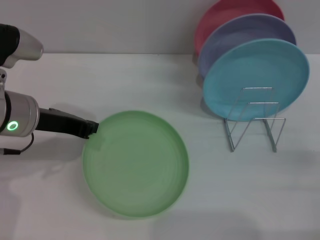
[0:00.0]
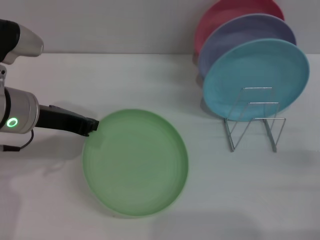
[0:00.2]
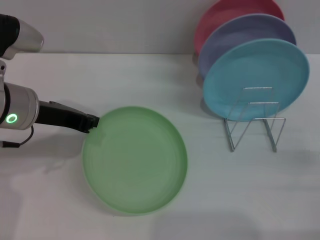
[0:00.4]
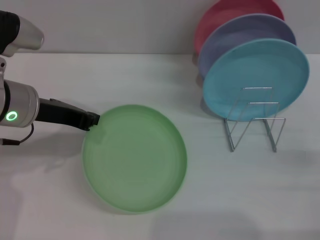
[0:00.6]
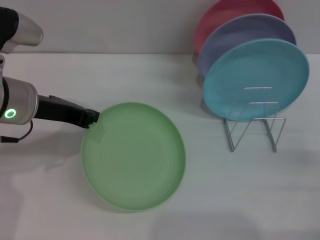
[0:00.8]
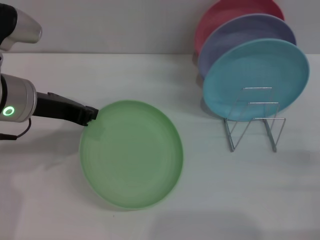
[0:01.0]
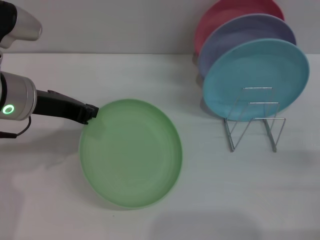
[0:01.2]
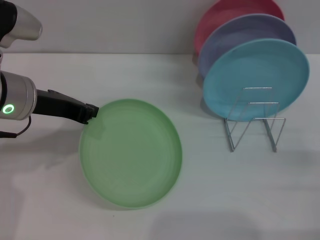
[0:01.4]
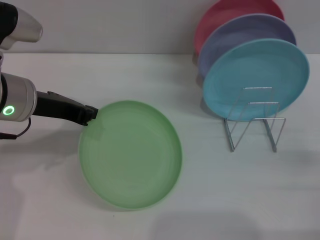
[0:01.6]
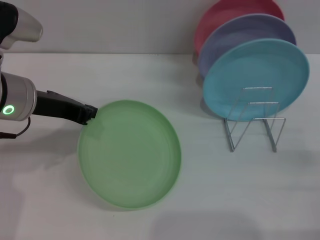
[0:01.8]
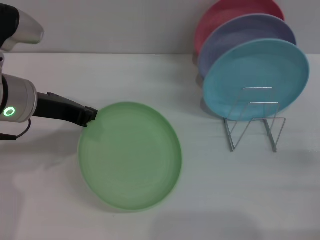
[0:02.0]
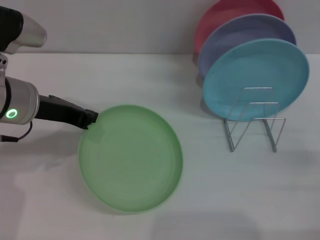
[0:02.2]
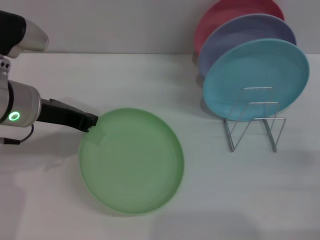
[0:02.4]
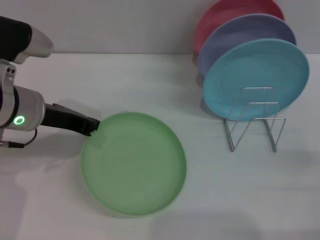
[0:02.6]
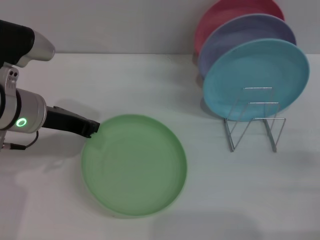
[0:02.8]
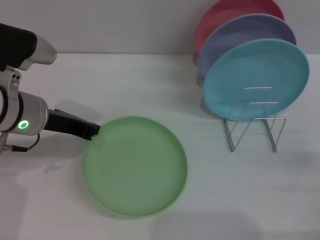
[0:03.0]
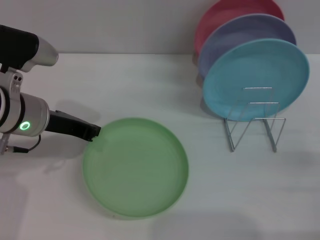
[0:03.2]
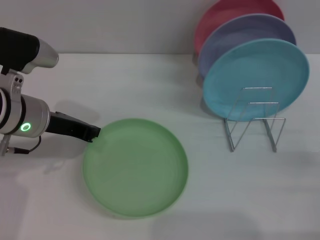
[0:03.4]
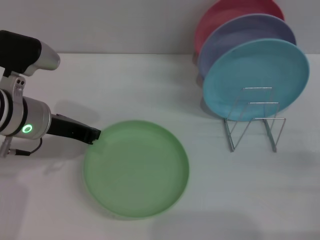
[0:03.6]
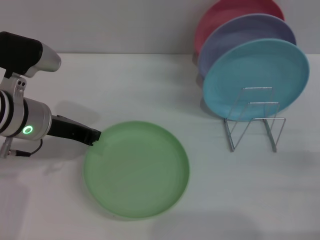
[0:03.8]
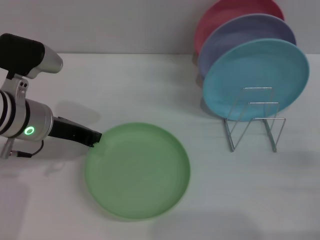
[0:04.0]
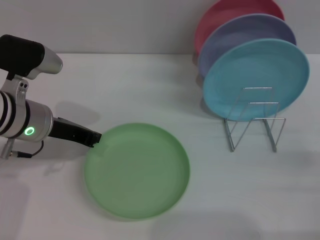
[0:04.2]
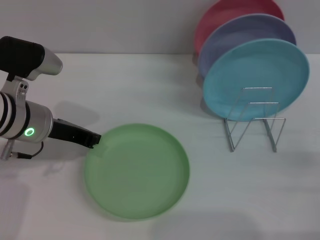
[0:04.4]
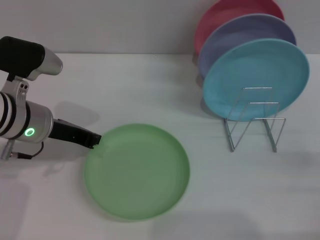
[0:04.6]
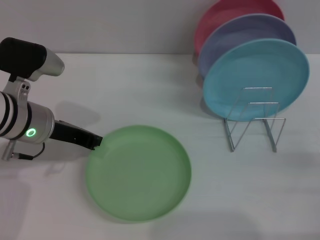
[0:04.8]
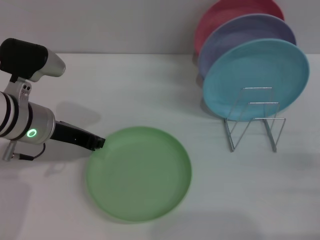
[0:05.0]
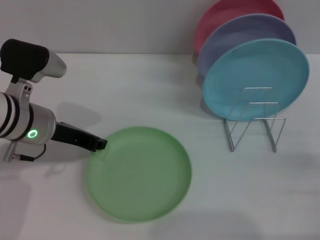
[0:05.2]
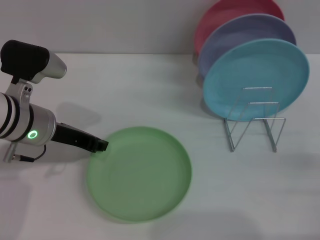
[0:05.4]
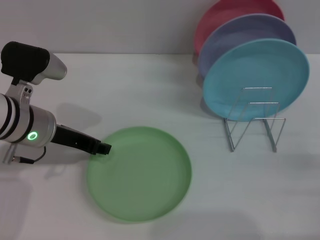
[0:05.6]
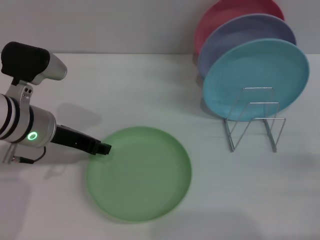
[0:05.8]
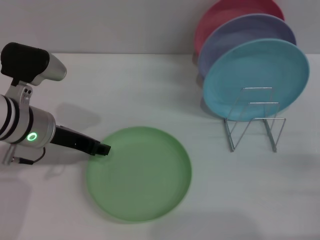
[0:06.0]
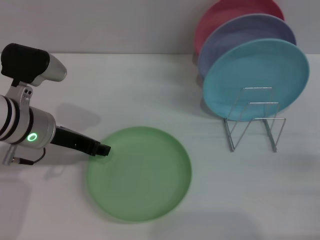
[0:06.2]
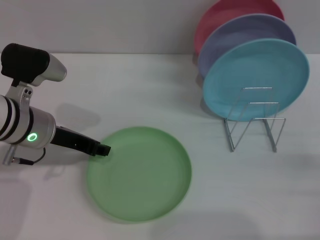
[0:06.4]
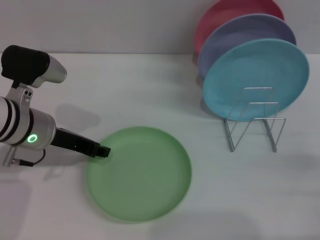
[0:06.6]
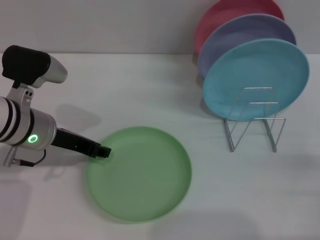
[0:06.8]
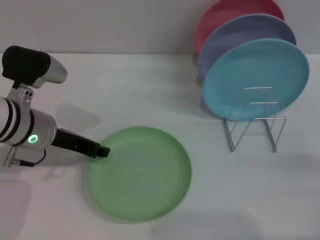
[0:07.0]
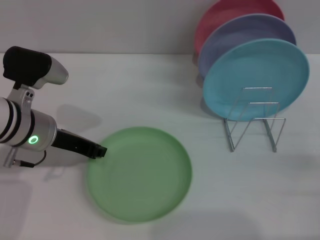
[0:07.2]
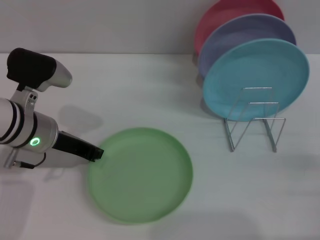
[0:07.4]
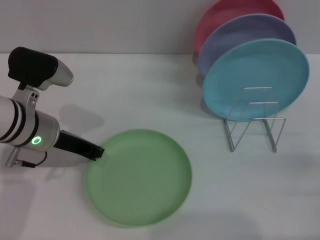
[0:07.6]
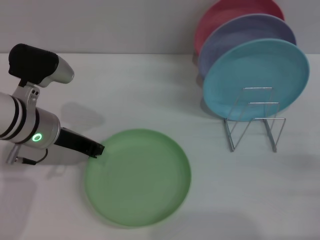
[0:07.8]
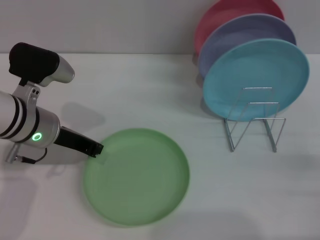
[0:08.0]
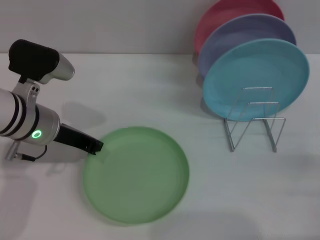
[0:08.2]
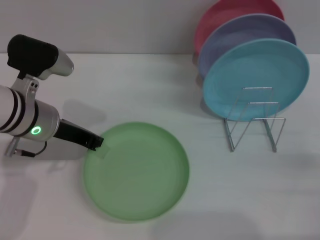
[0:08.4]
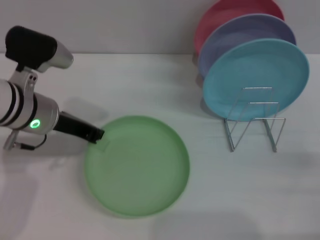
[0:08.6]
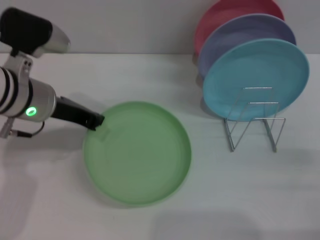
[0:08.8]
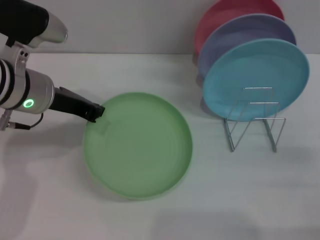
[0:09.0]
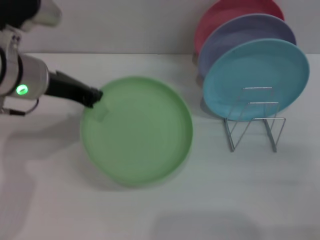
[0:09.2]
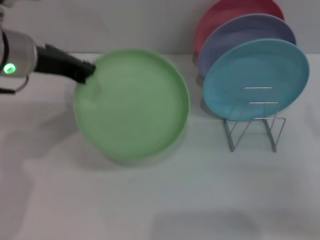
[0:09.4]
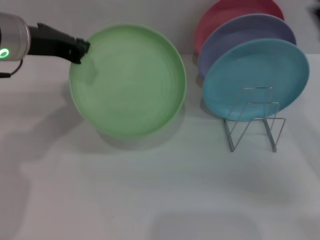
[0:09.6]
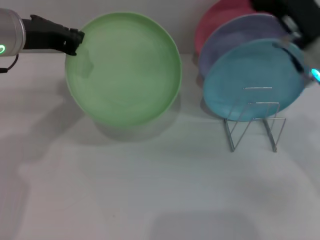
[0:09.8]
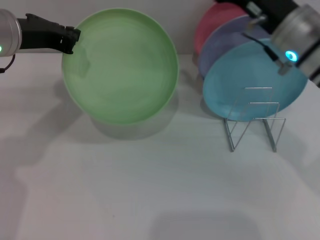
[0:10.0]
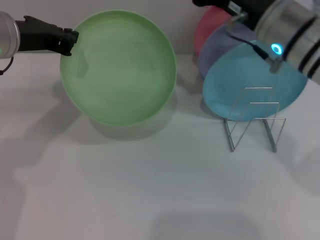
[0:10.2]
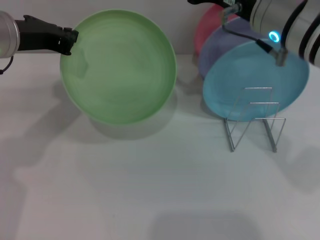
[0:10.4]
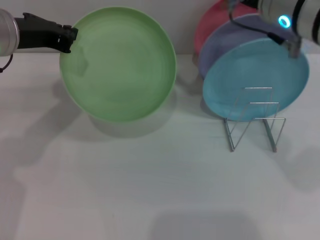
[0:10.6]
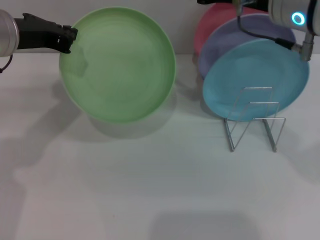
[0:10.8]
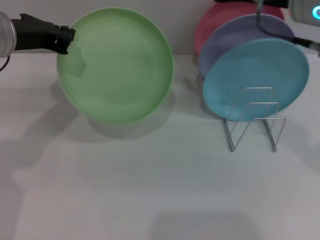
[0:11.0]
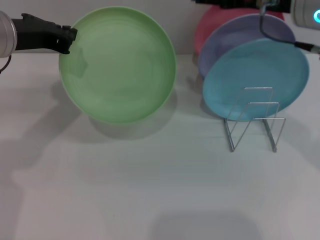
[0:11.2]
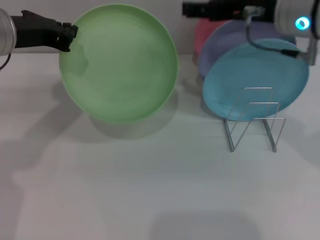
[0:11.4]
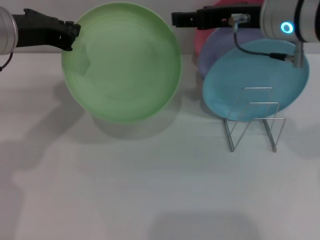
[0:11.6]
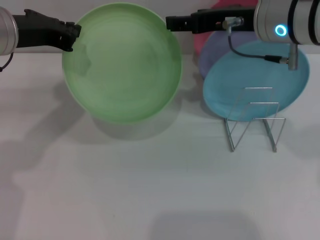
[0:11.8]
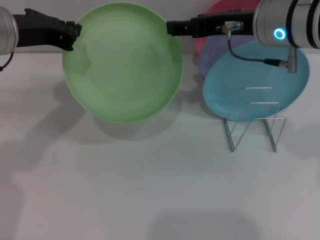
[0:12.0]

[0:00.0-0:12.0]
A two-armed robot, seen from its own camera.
Task of the whole recording: Grip the plate with one hand, pass it to the other, then set it on the shelf.
Step, 0:00.0 to 0:09.6: Pick up the plate with the left gripper.
0:00.0 to 0:04.4: There are only small adjustments of the grippers.
0:04.4 to 0:06.0: The left gripper opens up.
0:06.0 to 0:07.6: The left gripper closes its fingers.
0:07.6 to 0:09.0: The left gripper shifts approximately 5 cm upward.
0:09.0 to 0:10.4: The left gripper is displaced upward by roughly 5 cm. The right gripper heads to the left, upward and forward, covering roughly 30 cm.

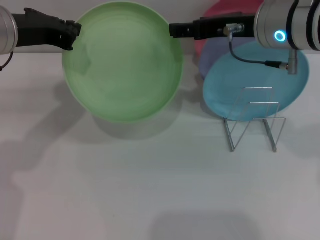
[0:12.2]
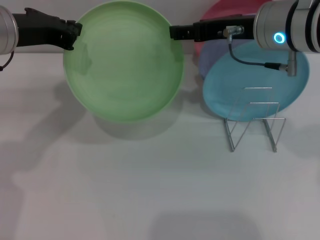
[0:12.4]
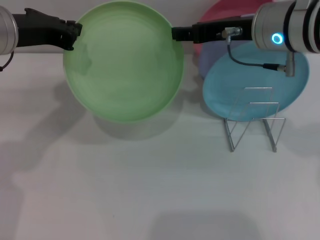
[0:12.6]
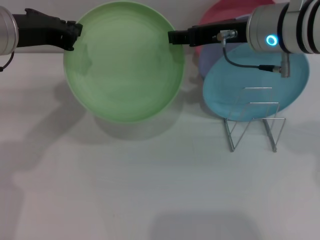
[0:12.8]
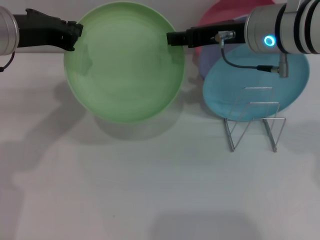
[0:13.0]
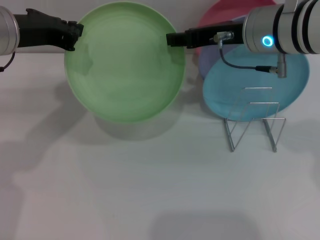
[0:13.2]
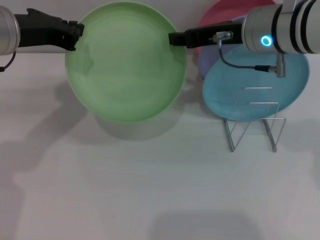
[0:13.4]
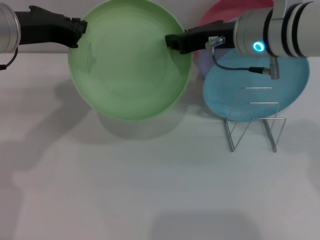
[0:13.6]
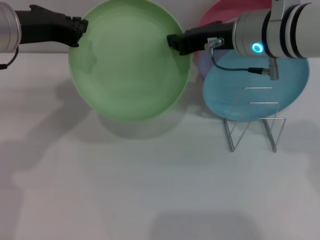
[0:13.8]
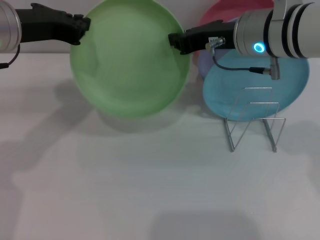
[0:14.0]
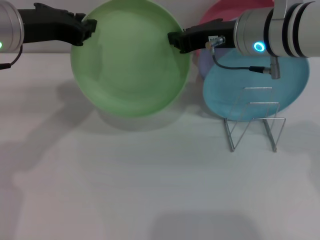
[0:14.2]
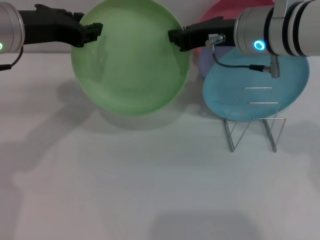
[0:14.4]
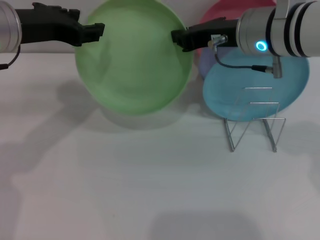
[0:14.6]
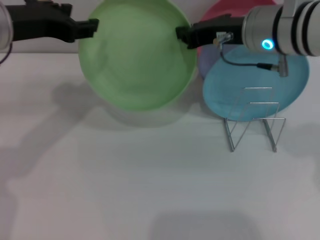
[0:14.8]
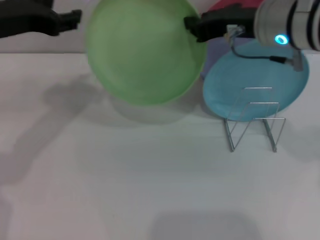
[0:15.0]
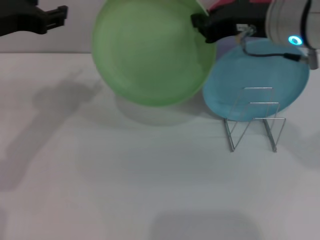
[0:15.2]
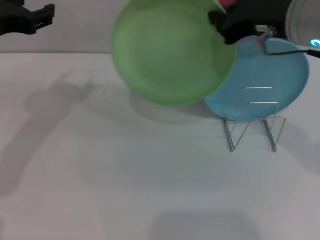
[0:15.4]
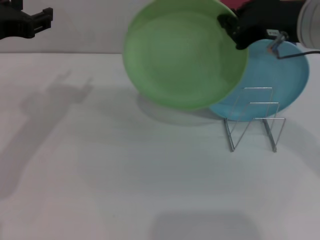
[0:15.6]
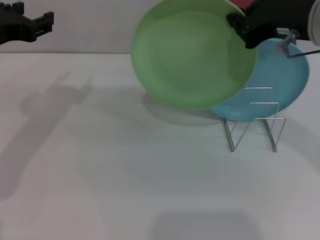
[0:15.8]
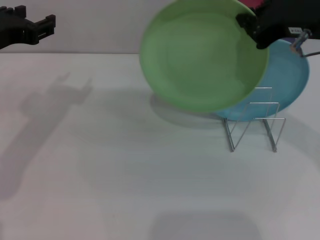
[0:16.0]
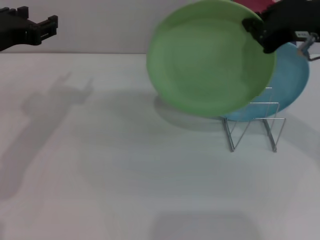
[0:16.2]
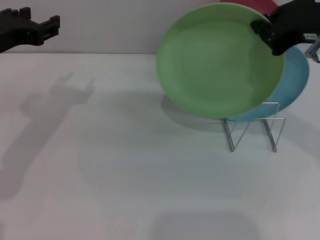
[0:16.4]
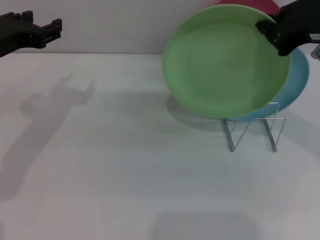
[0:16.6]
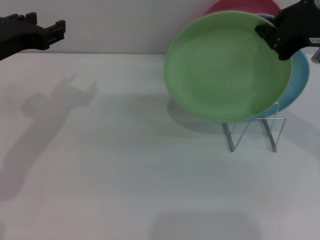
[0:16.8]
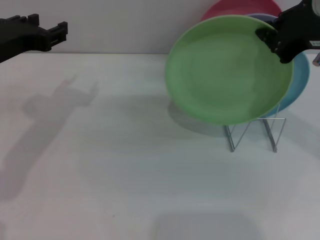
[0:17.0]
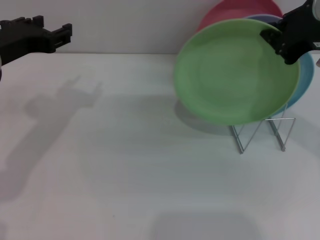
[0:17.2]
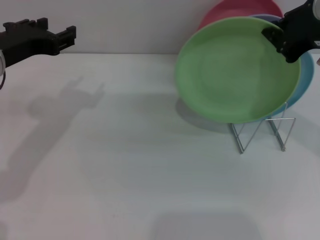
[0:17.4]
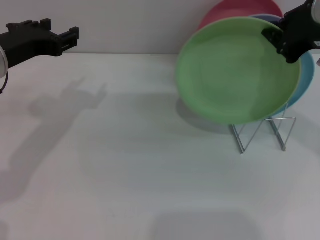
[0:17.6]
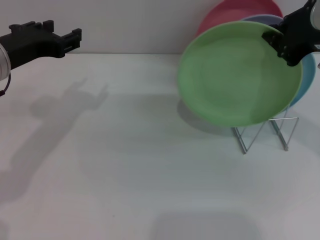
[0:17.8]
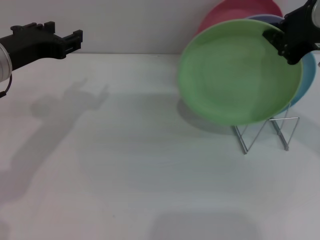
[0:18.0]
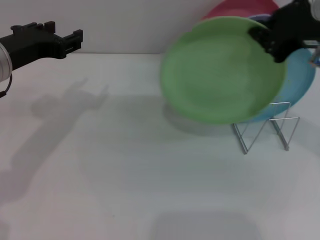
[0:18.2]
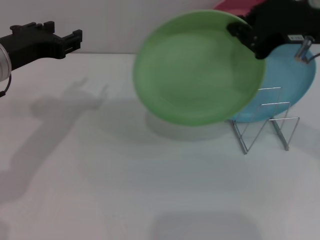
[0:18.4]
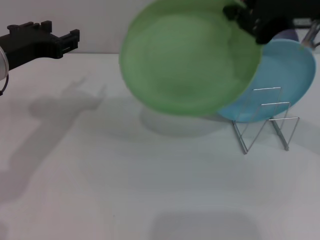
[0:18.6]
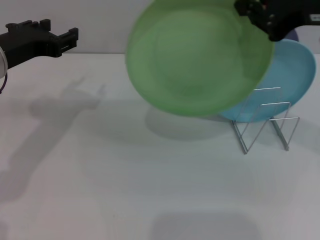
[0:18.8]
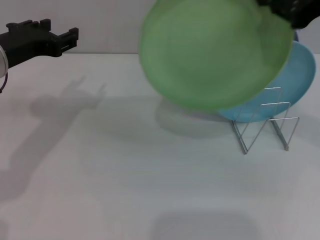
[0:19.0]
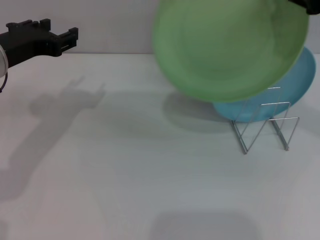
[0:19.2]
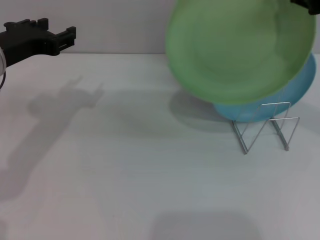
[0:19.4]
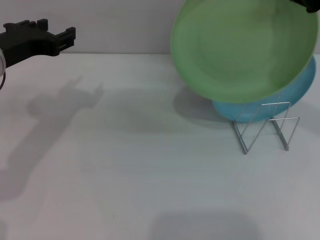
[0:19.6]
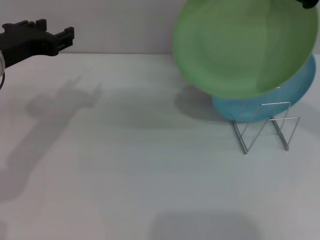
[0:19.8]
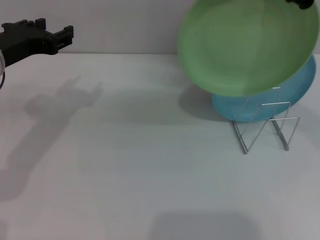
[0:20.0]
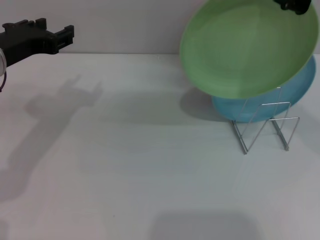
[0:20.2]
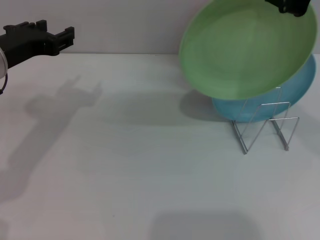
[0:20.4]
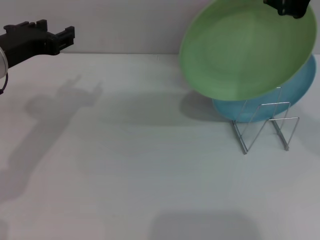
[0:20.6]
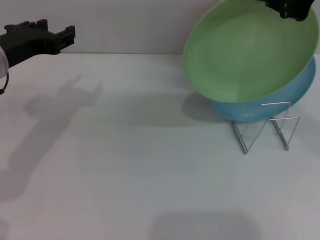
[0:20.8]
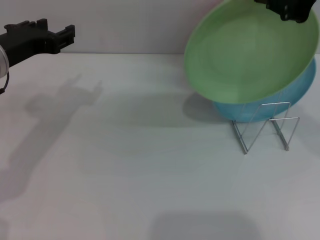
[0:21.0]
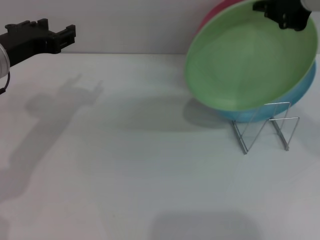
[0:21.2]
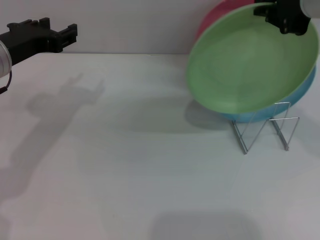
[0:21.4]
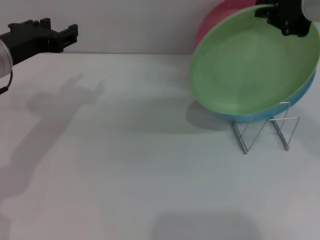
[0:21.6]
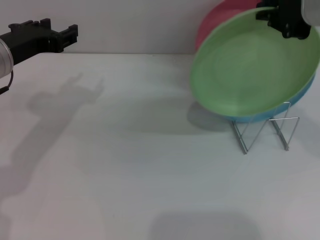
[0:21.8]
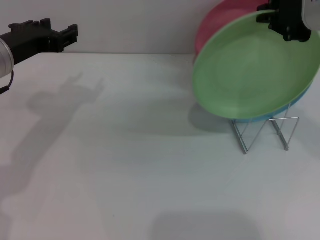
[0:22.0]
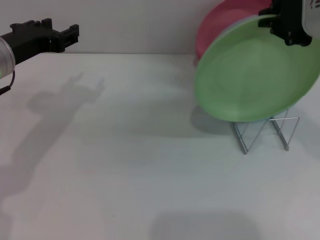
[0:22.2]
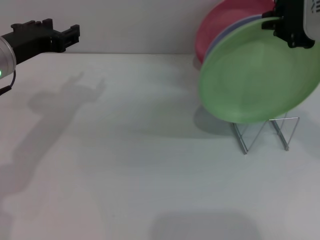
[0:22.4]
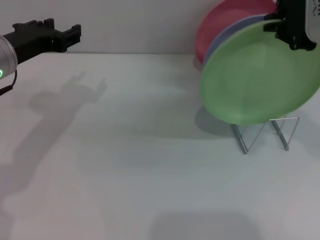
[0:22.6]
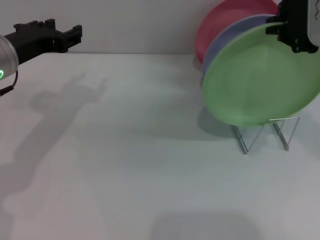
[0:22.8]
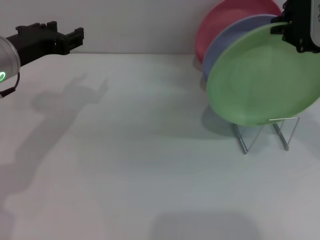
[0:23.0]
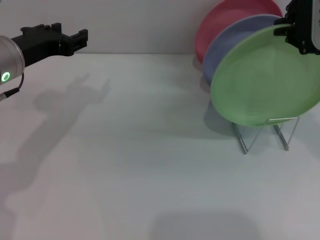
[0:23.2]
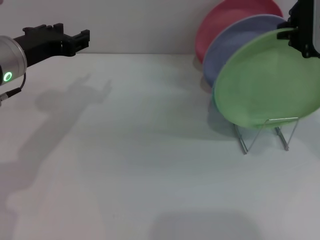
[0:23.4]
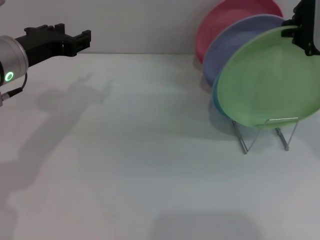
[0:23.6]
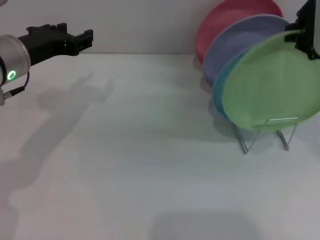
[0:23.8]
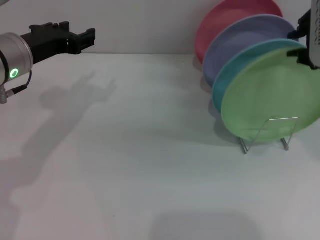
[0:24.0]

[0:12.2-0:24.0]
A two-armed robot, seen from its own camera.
Task of the whole recording: Grip the plate with one hand, pass it to the other, then set it on the shelf.
Step, 0:12.2 to 0:15.0: Pass the plate from the left gripper to the right gripper.
0:12.2 to 0:13.6: The right gripper closes.
0:13.6 to 0:15.2: The right gripper moves about 5 cm, and closes its fingers. Meanwhile the left gripper opens up.
0:15.2 to 0:16.6: The right gripper is displaced to the right by some 5 cm.
0:16.6 to 0:18.2: The grippers move only a little.
0:18.2 to 0:19.6: The right gripper shifts approximately 10 cm upward.
0:21.0 to 0:24.0: The grippers move only a little.
